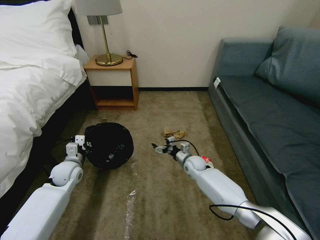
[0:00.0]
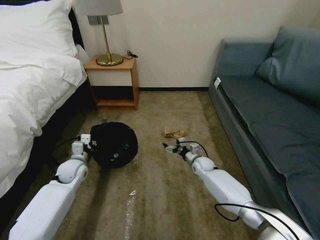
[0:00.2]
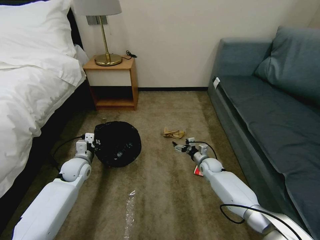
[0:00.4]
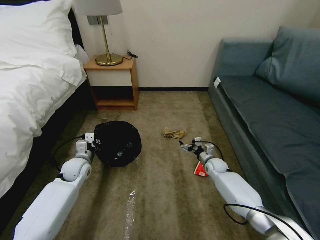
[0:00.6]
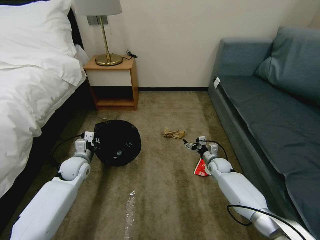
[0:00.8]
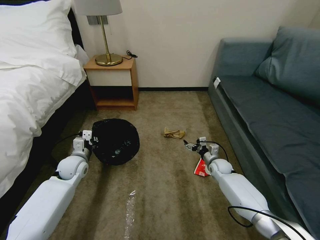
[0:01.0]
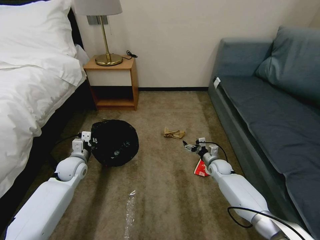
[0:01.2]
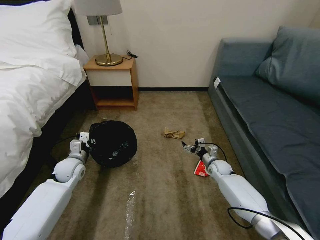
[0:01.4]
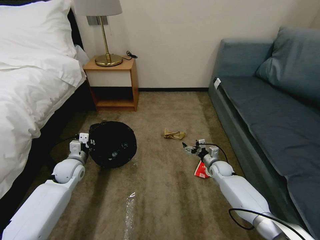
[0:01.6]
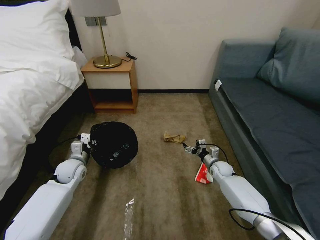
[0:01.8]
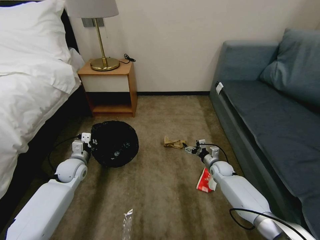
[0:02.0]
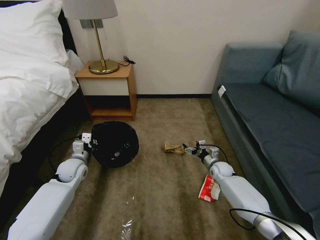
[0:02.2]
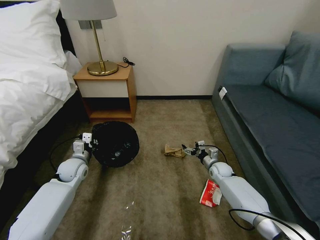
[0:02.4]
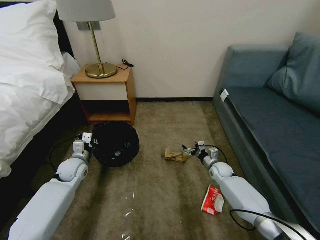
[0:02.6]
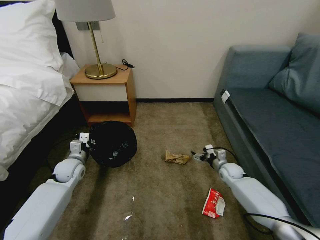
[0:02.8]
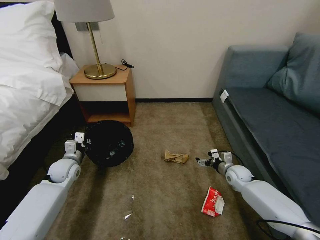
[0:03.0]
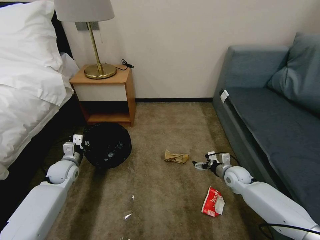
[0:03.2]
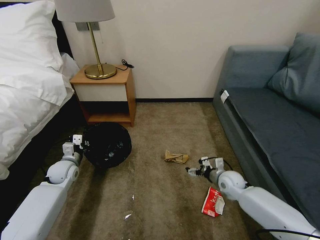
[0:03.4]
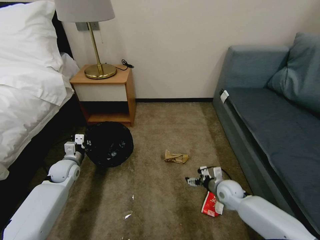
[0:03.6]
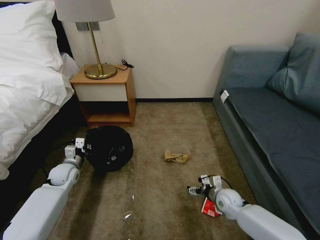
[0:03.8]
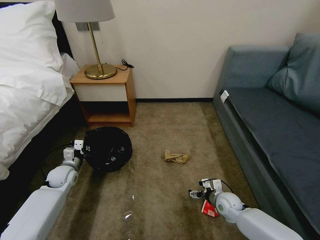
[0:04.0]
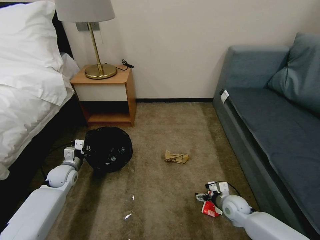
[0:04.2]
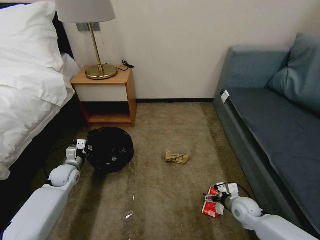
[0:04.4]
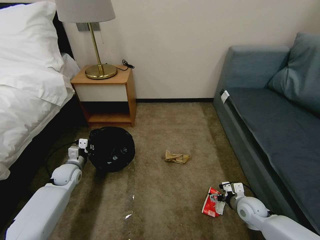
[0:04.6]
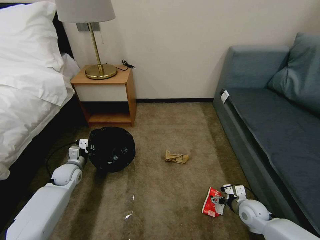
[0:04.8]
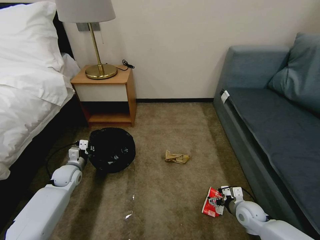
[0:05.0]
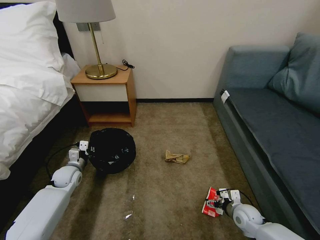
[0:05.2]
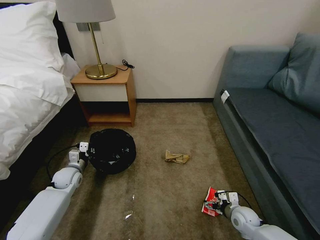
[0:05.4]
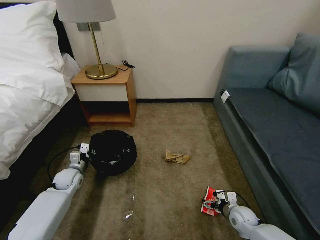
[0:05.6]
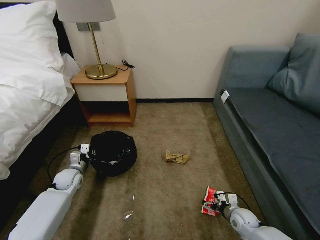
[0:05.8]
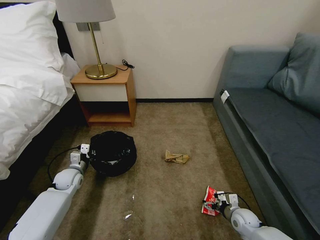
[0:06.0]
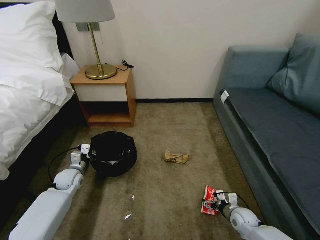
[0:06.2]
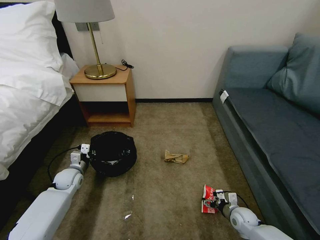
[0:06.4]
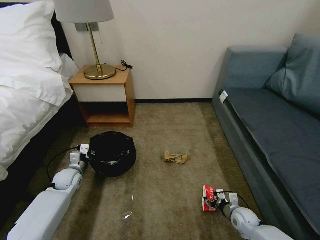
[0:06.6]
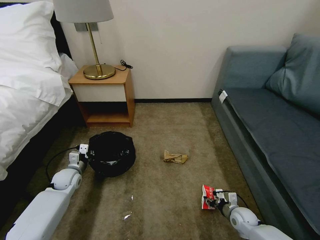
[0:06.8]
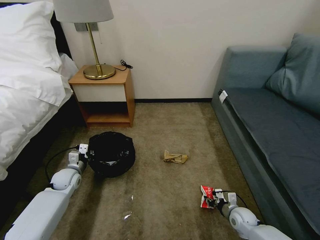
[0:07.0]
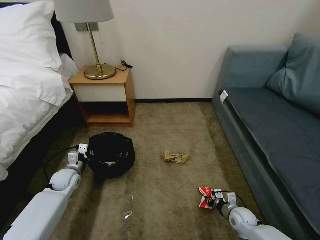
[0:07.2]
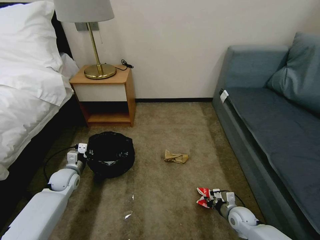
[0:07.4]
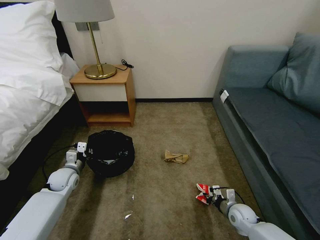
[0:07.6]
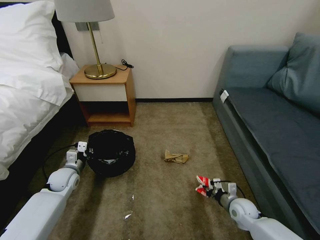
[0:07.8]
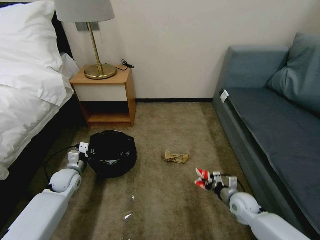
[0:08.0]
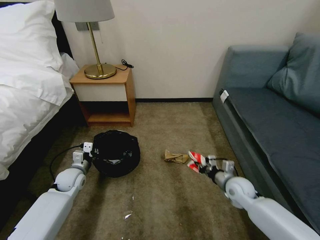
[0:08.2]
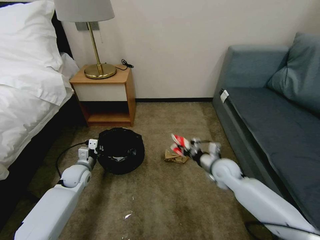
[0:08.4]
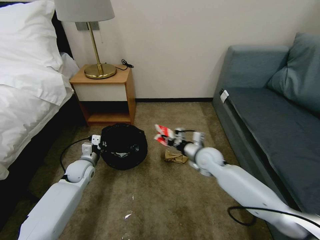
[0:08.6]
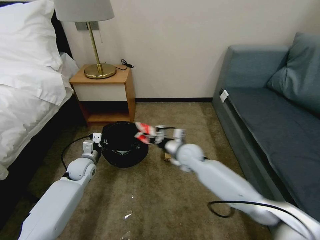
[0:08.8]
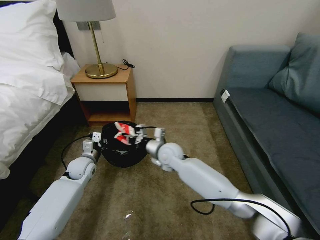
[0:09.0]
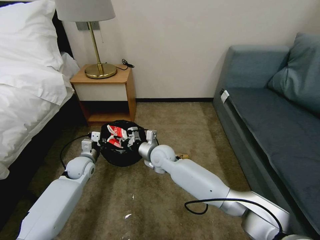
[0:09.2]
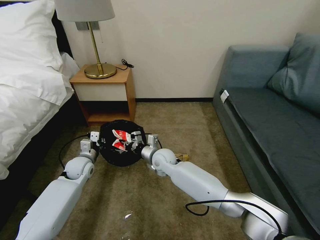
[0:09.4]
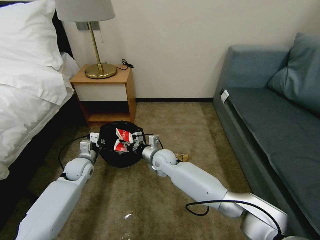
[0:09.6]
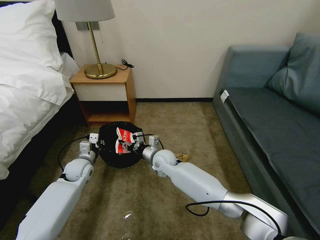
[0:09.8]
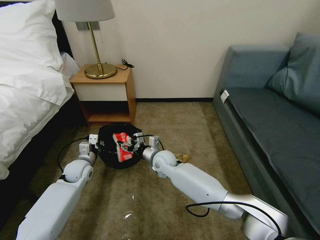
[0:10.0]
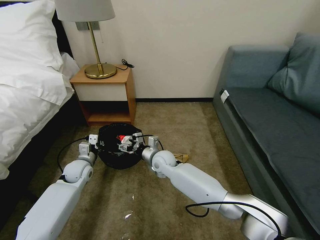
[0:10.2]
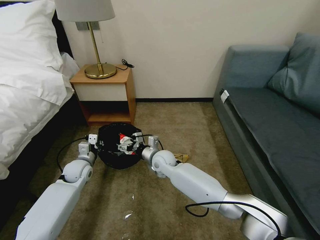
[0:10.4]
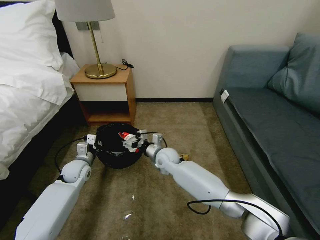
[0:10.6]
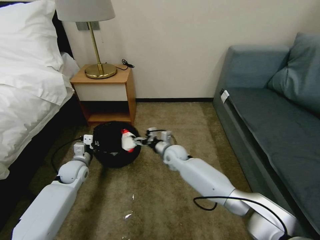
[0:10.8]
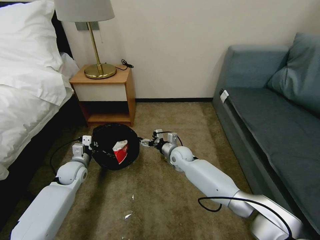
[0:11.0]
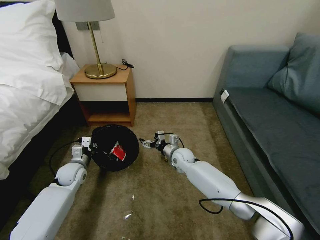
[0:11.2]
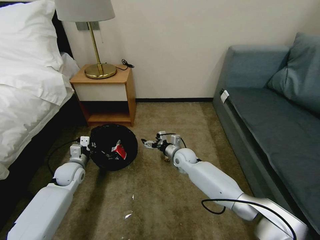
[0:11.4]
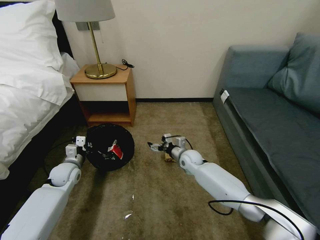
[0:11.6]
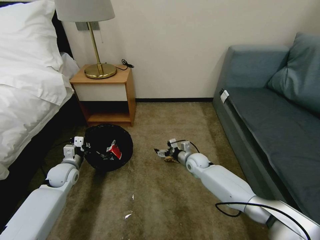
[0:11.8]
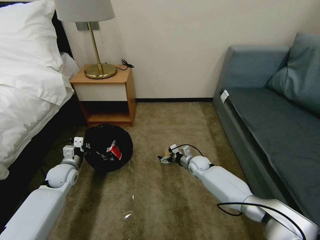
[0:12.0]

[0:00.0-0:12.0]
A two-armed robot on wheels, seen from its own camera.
Task of the whole recording: Pick up the trash bin, then pick up the garbage on the floor and place it into the trash bin.
0:00.0 to 0:01.6: The right gripper heads to the right, covering about 10 cm.
0:01.6 to 0:03.0: The right gripper travels to the right by some 5 cm.
0:03.0 to 0:04.4: The right gripper goes roughly 15 cm backward.
0:04.4 to 0:06.0: The right gripper shifts some 5 cm downward.
0:06.0 to 0:07.6: The right gripper closes its fingers.
0:07.6 to 0:09.0: The right gripper is displaced to the left, upward and forward by approximately 40 cm; the left gripper moves to the right, some 5 cm.
0:09.0 to 0:10.4: The right gripper ends up some 5 cm from where it was, and opens up.
0:10.4 to 0:12.0: The right gripper goes some 20 cm to the right and downward; the left gripper heads to the left, covering some 5 cm.

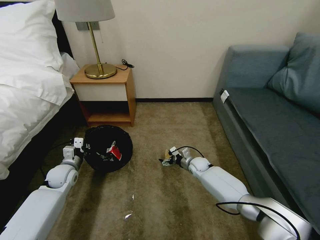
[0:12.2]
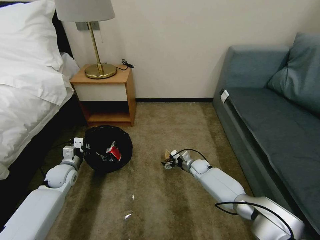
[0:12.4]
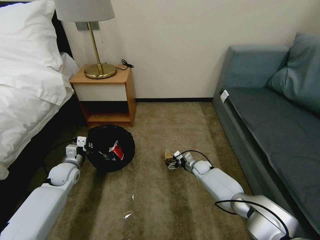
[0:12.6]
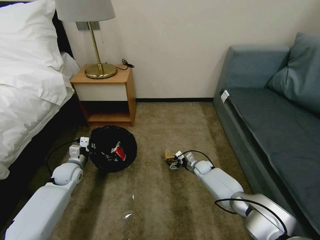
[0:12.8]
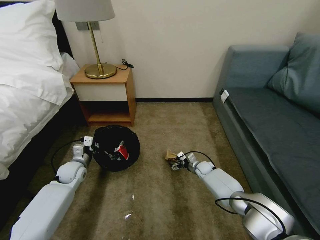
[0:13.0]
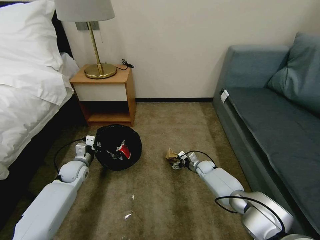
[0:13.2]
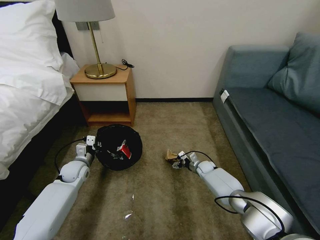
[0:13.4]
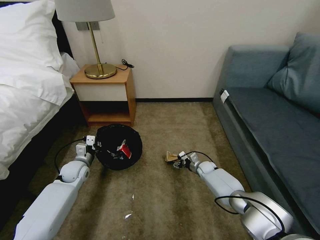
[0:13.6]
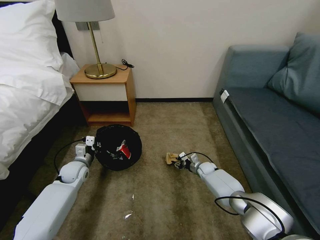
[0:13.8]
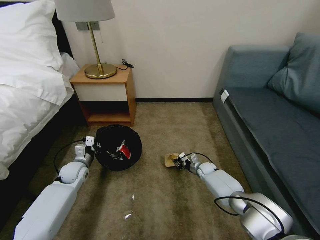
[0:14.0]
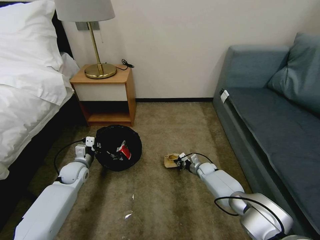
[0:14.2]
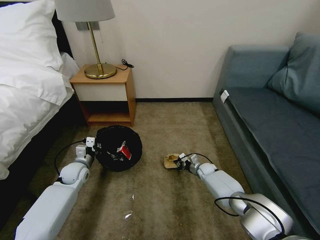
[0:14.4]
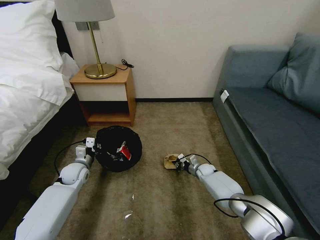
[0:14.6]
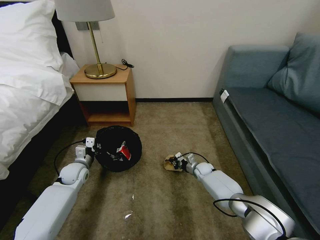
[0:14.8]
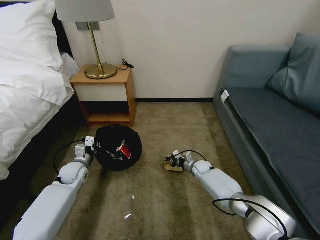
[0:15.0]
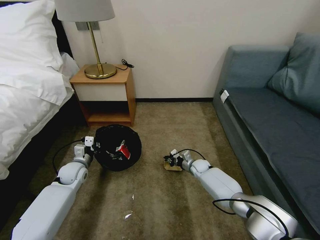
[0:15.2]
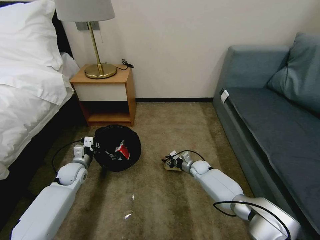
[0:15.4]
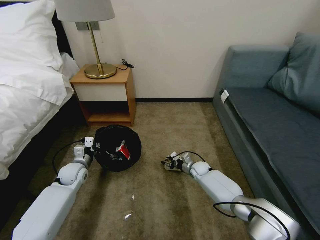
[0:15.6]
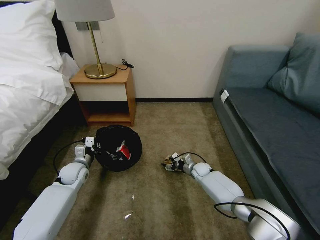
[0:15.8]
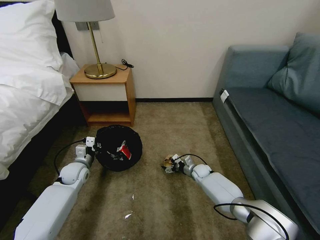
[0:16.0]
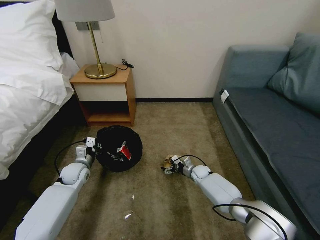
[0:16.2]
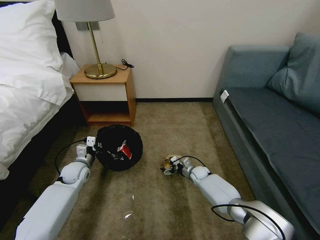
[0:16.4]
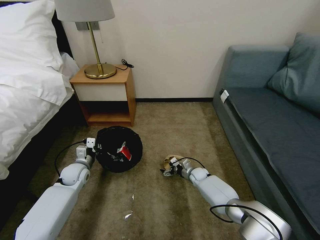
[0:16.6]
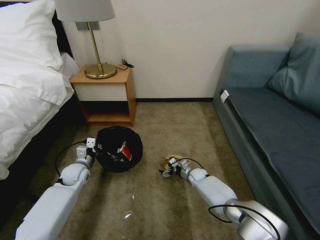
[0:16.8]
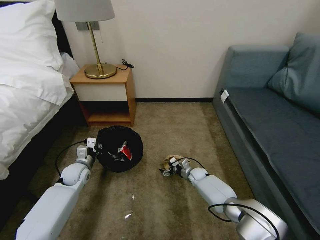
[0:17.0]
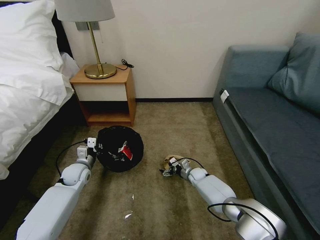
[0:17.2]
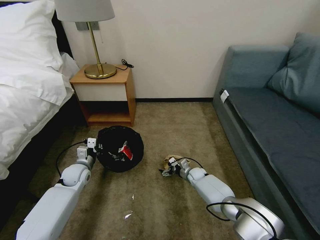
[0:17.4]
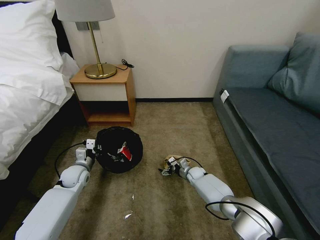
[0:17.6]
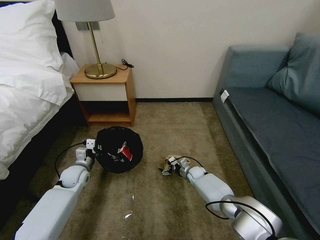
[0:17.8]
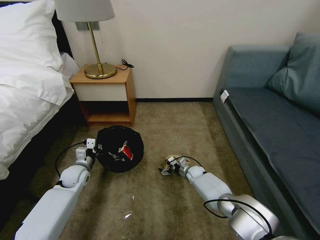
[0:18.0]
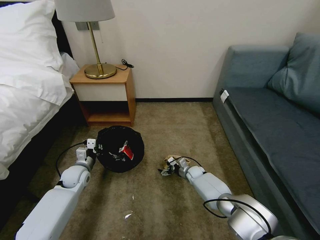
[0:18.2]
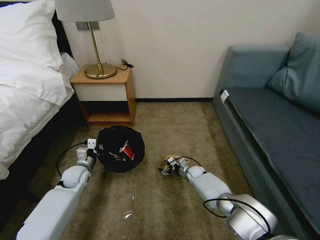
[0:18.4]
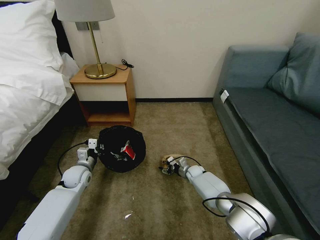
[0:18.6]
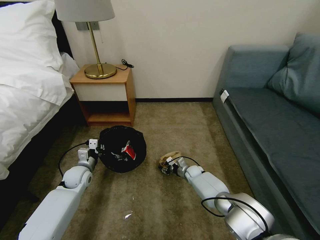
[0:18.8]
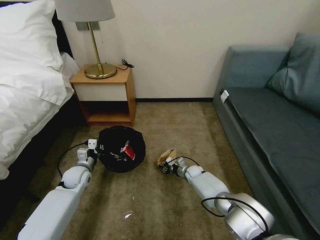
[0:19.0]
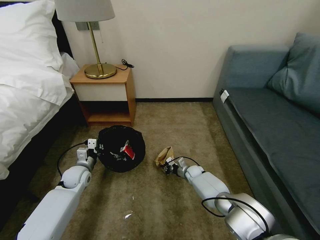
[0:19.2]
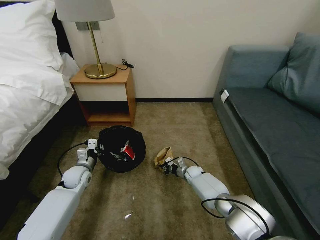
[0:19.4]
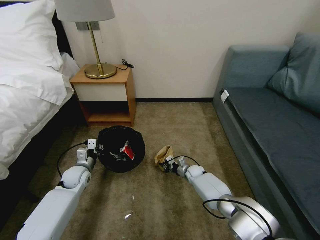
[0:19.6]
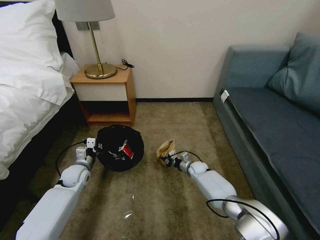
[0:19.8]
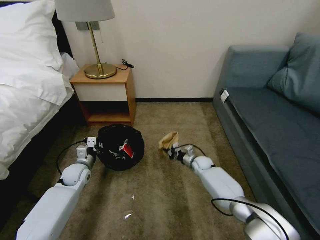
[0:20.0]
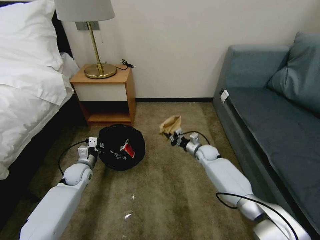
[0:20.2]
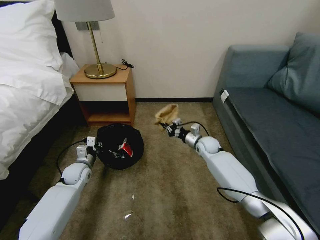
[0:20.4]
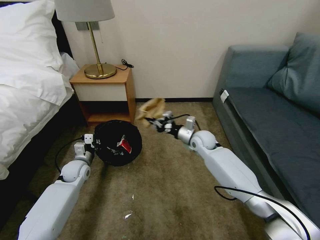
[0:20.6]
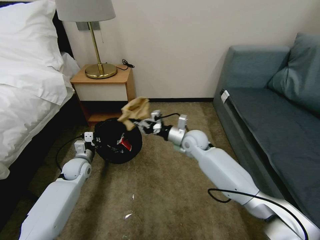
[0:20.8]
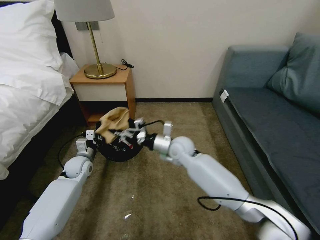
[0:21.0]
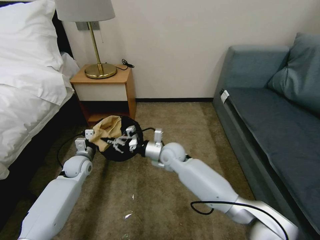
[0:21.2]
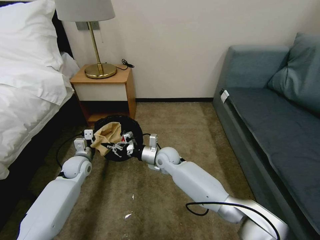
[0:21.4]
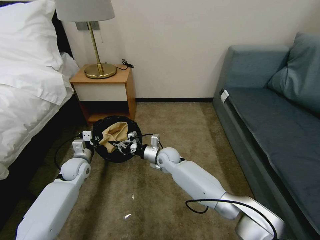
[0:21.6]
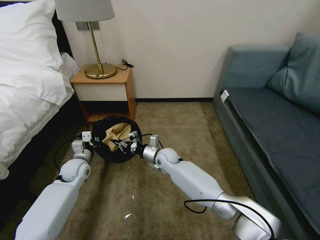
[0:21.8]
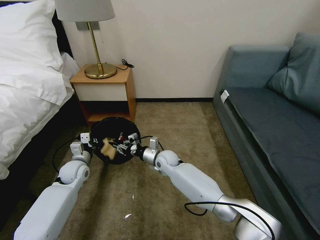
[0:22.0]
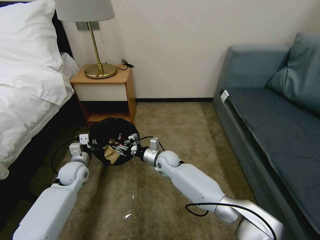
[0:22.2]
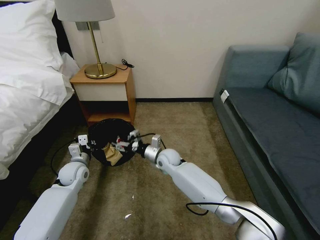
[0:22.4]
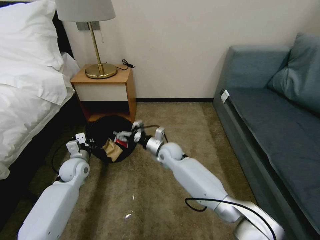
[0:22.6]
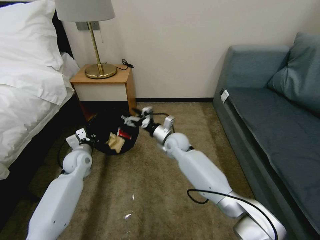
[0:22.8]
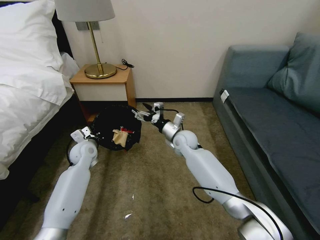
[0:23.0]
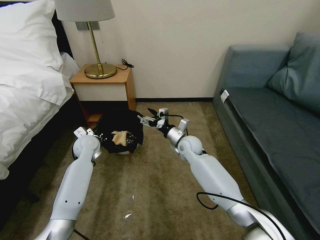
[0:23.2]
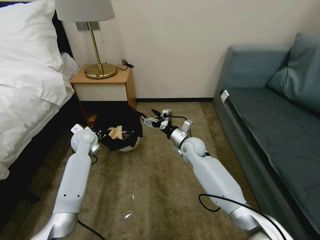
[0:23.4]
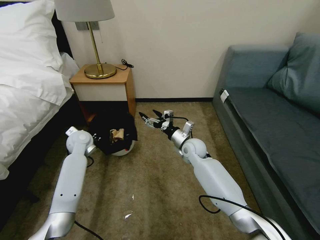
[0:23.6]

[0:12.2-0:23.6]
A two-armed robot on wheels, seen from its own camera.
Task of the whole recording: Pick up the trash bin, then pick up the garbage on the floor and place it into the trash bin.
0:12.2 to 0:13.6: The right gripper travels to the right and downward by some 10 cm, and closes its fingers.
0:13.6 to 0:15.0: The right gripper closes its fingers.
0:15.0 to 0:16.4: The right gripper opens.
0:16.4 to 0:17.8: The grippers stay close to where they were, moving slightly.
0:17.8 to 0:19.4: The right gripper closes up.
0:19.4 to 0:20.8: The right gripper heads upward, covering roughly 25 cm.
0:20.8 to 0:22.2: The right gripper shifts some 15 cm downward and to the left, and opens its fingers.
0:22.2 to 0:23.6: The left gripper is displaced forward and upward by approximately 10 cm, while the right gripper moves to the right and upward, about 10 cm, and opens its fingers.
